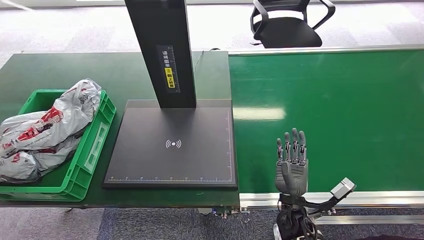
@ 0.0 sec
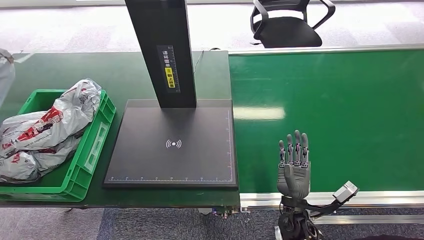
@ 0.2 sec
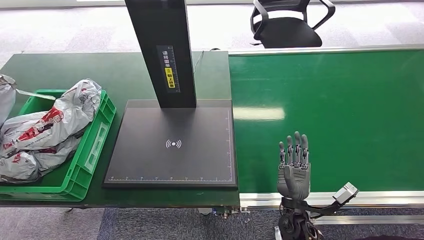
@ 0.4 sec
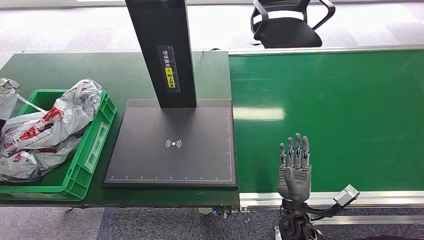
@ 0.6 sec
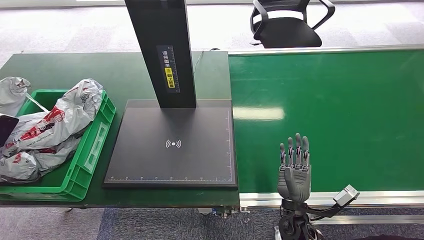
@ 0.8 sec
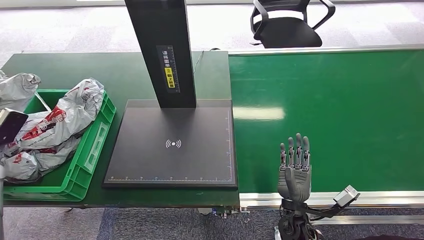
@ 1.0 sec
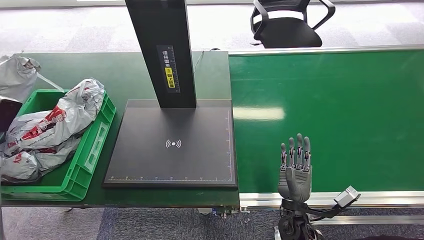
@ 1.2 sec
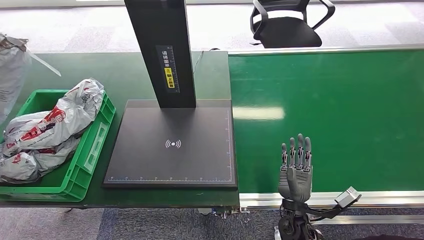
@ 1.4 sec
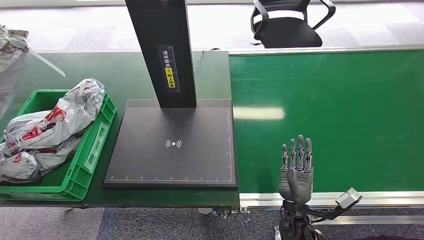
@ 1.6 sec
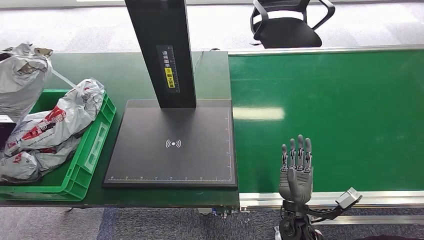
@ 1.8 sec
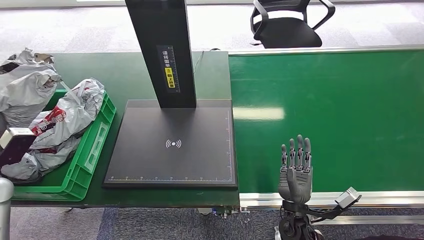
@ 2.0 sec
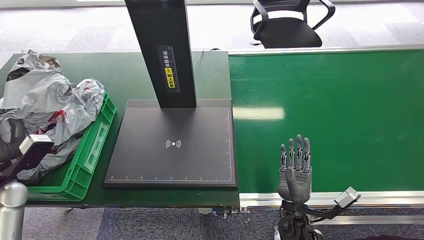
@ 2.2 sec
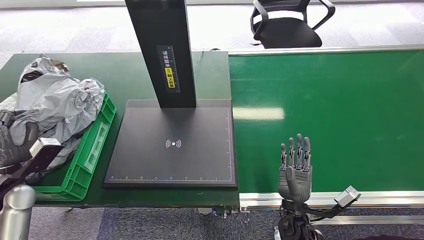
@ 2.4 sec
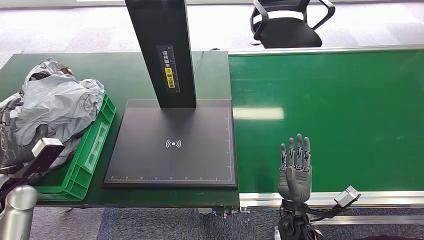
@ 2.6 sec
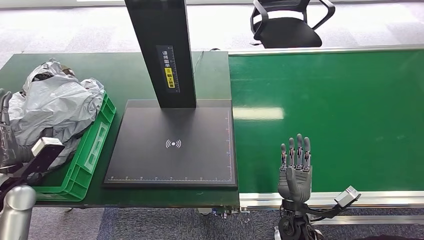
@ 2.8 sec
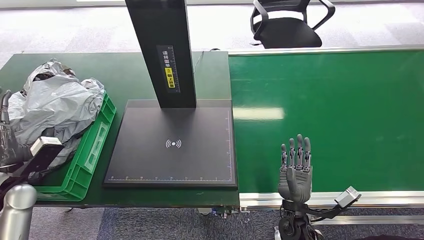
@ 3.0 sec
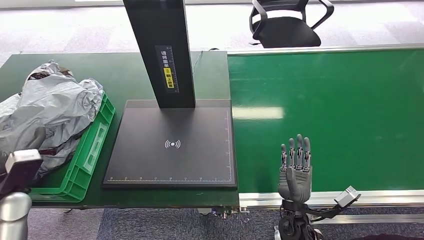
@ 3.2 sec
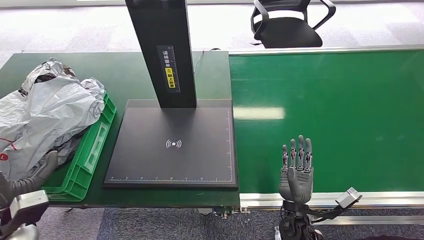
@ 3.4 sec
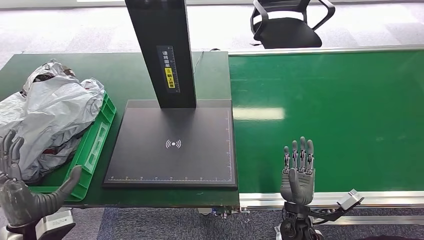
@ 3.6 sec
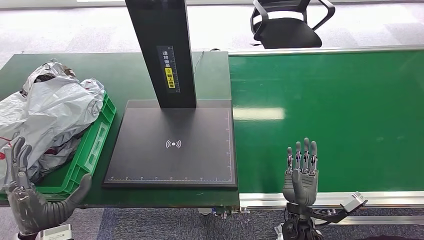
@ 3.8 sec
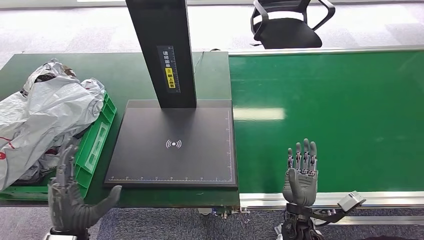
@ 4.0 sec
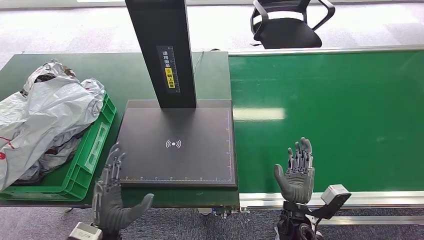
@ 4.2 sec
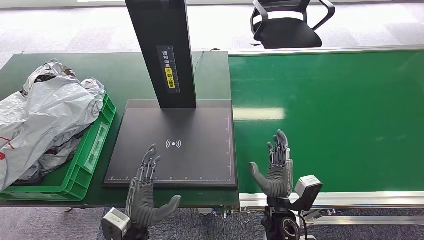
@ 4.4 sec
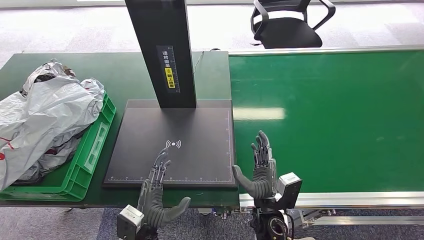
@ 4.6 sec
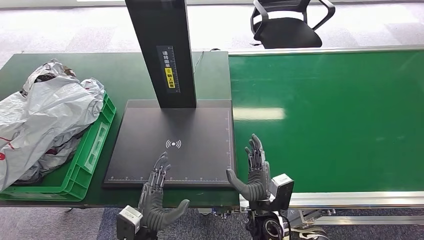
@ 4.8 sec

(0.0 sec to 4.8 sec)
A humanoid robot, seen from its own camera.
Step, 0.0 sec - 4.8 sec: Place the package into the parcel locker.
0.0 sec - 1.6 sec: The left hand heads downward and backward, covering some 15 cm.
1.6 sec - 3.2 sec: The left hand goes about 15 cm to the right and downward.
3.2 sec - 4.8 sec: The right hand moves to the left, roughly 10 cm, while the left hand heads to the right and downward, covering approximately 35 cm.
